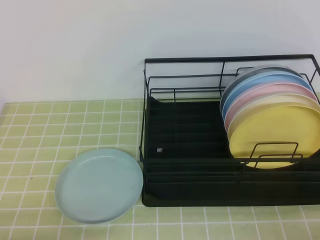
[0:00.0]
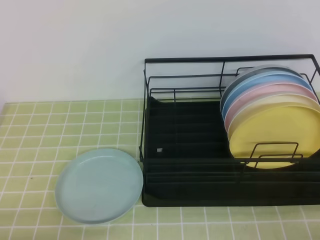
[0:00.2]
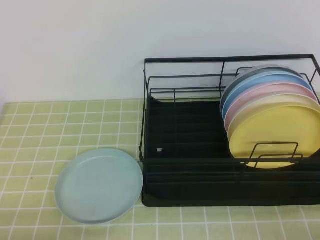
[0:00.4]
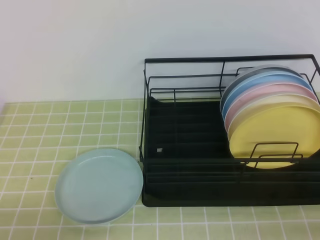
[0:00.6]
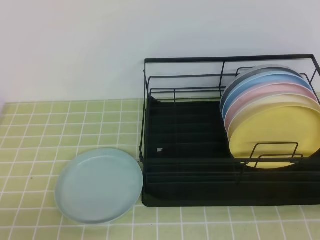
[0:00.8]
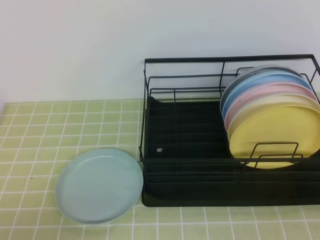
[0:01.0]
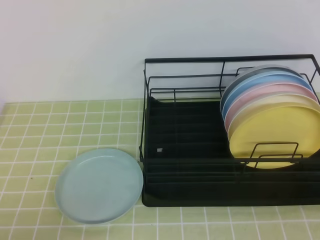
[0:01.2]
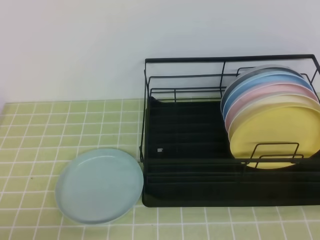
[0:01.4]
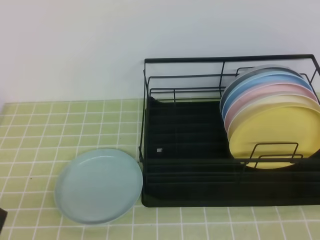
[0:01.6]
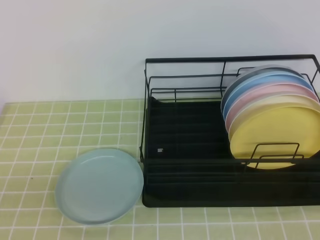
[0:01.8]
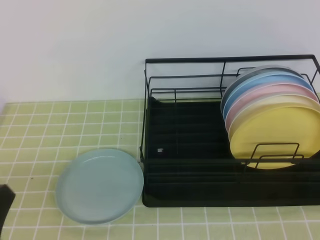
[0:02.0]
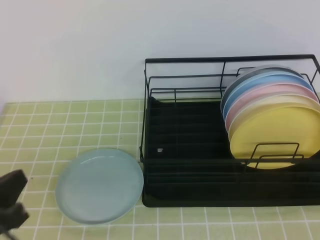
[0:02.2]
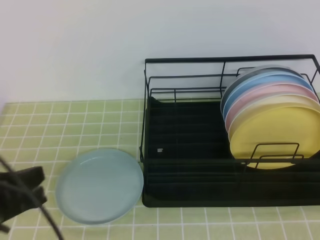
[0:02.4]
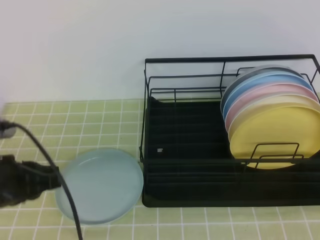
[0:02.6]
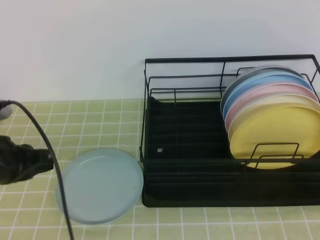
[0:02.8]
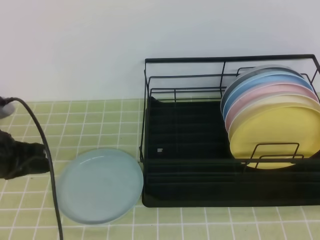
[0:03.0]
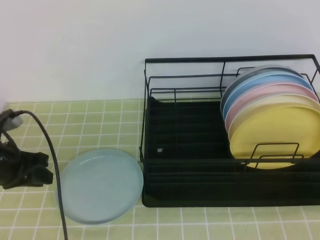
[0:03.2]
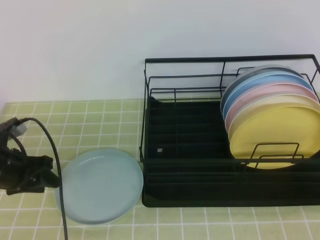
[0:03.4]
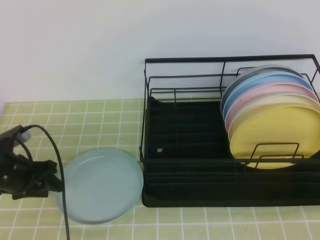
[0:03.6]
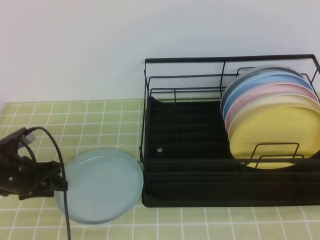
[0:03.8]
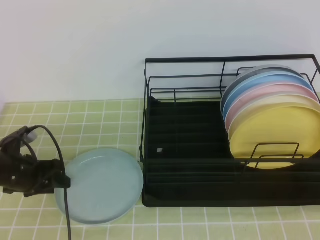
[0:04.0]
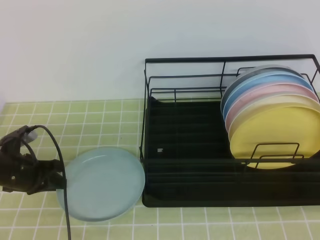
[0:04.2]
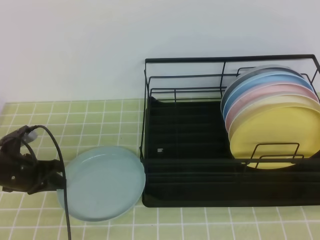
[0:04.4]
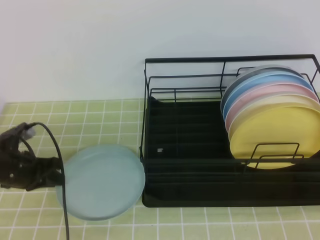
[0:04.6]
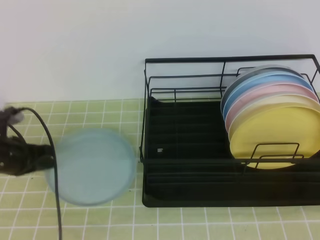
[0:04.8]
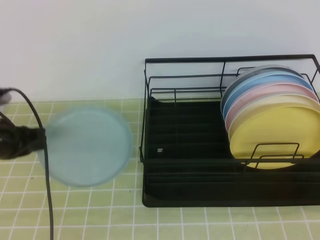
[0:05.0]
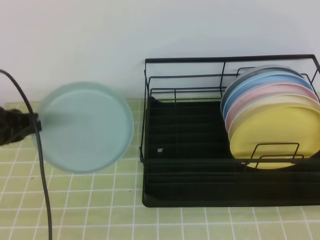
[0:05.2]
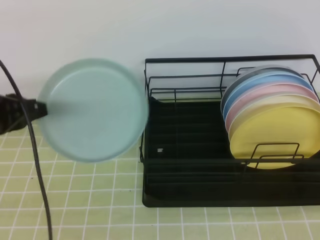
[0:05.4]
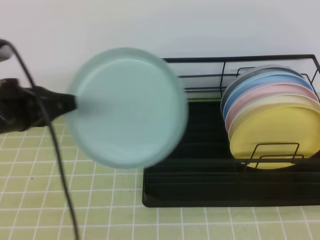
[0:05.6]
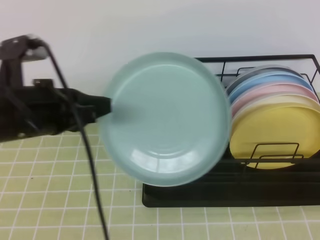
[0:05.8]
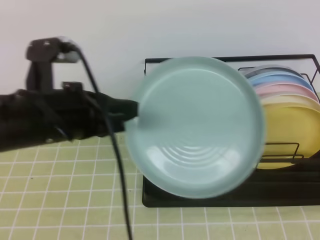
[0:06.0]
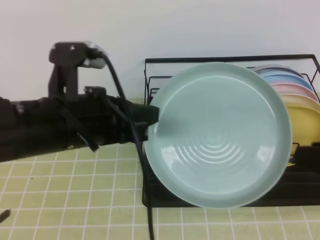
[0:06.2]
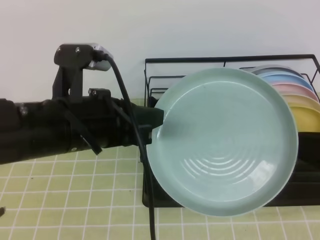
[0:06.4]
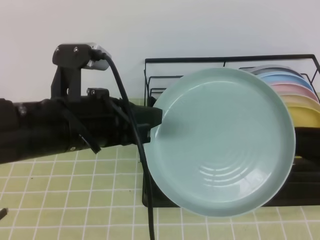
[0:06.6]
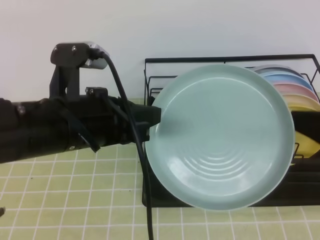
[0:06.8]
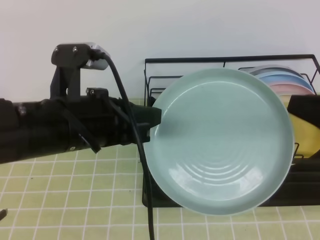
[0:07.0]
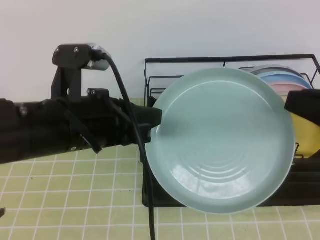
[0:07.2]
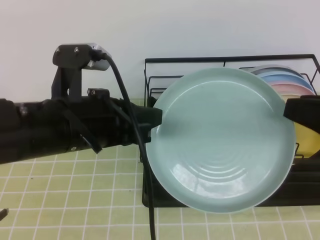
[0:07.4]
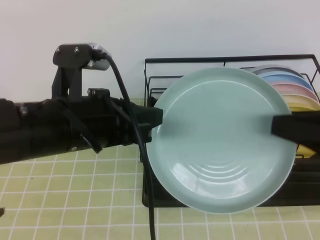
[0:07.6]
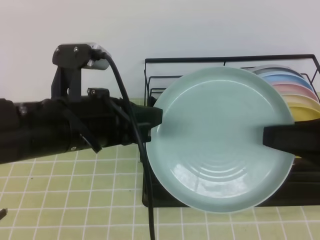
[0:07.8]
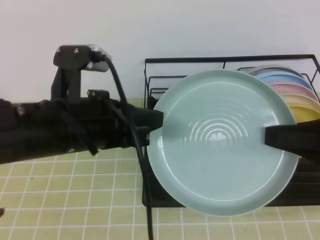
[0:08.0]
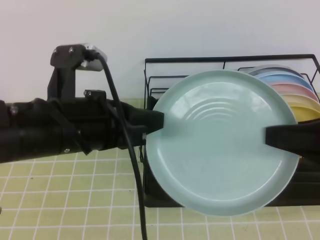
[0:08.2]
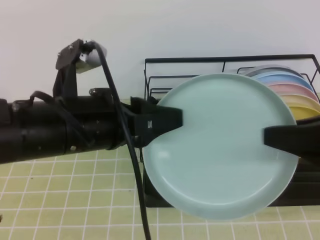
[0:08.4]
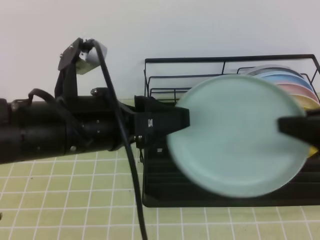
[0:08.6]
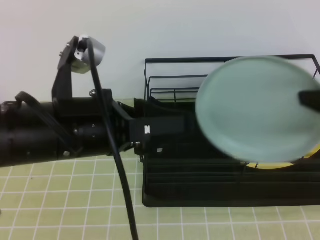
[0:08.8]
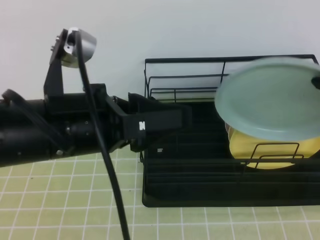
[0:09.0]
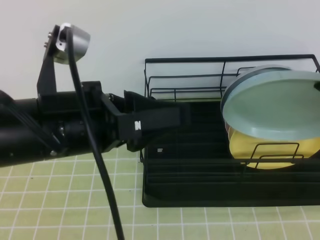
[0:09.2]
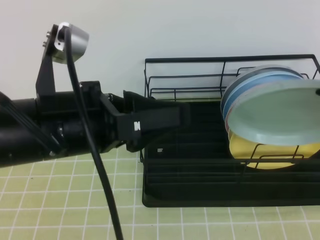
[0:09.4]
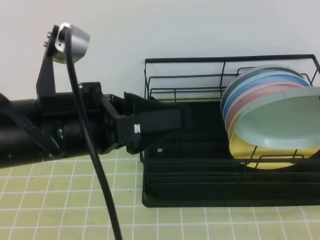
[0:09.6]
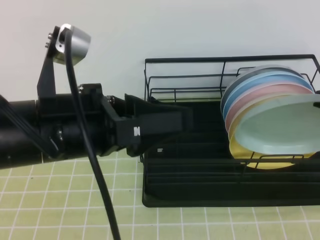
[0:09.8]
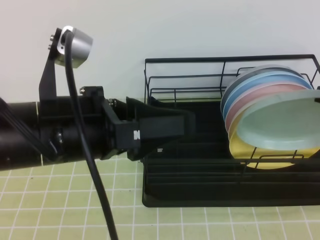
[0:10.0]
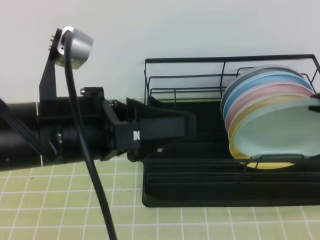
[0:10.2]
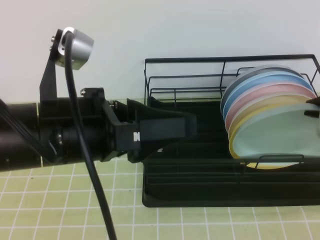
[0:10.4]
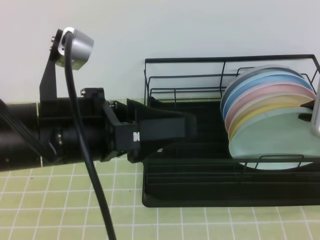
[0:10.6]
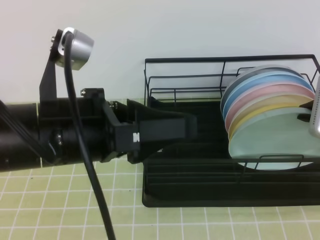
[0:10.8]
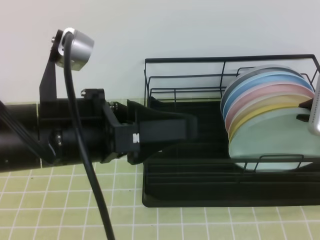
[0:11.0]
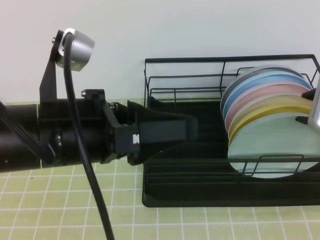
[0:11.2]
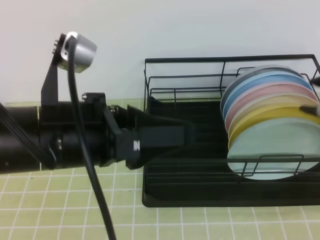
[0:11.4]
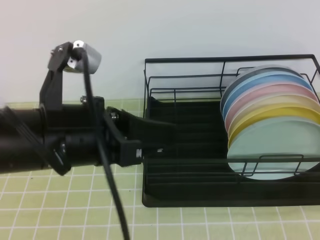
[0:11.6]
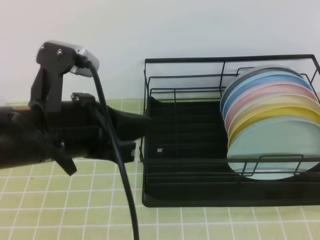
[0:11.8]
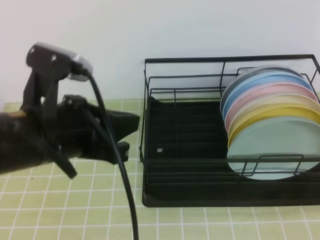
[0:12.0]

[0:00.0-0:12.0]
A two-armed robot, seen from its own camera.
Step, 0.0 to 3.6 s: Left grab the green plate.
Step, 3.8 to 6.8 s: Right receive the plate.
Step, 7.0 to 9.4 s: Right place it at the front of the shelf.
1.6 to 3.0 s: The left gripper shifts approximately 20 cm forward, while the right gripper heads forward, covering approximately 5 cm.
3.0 to 4.4 s: The left gripper heads downward and forward, covering roughly 10 cm, and opens and closes again.
4.4 to 6.0 s: The left gripper shifts about 25 cm upward, to the right and backward. The right gripper opens.
6.0 to 7.6 s: The right gripper moves forward, about 5 cm.
7.6 to 9.0 s: The right gripper changes place by about 5 cm, and closes its fingers; the left gripper opens up.
9.0 to 10.4 s: The right gripper shifts by roughly 5 cm.
10.4 to 12.0 s: The left gripper closes its fingers. The right gripper heads backward and upward, covering approximately 15 cm, and opens, then closes again.

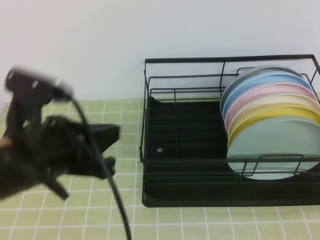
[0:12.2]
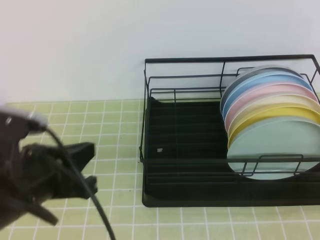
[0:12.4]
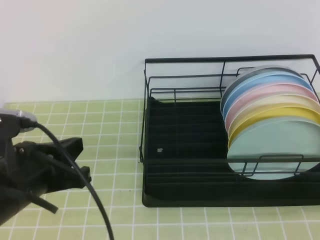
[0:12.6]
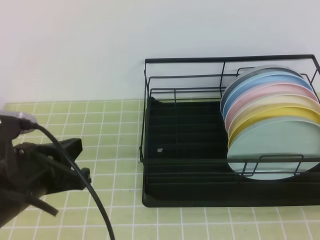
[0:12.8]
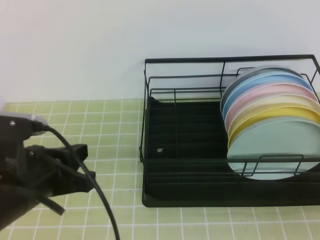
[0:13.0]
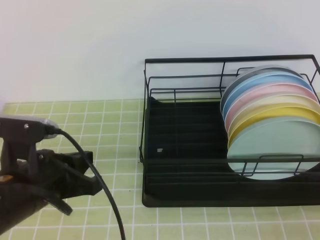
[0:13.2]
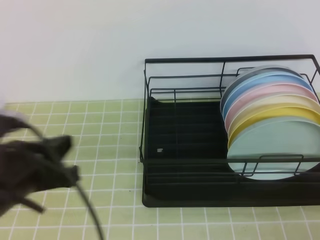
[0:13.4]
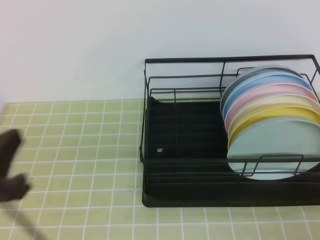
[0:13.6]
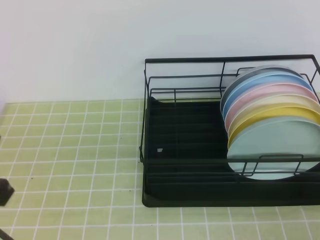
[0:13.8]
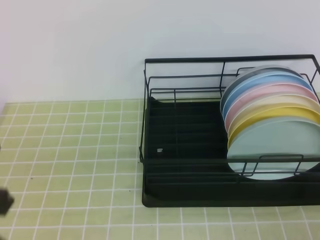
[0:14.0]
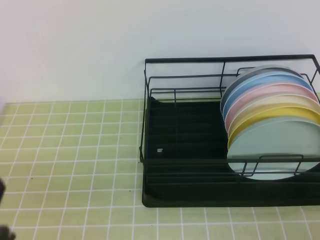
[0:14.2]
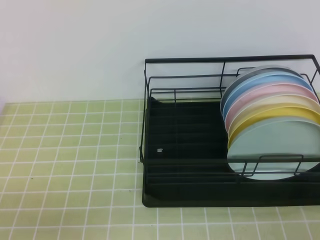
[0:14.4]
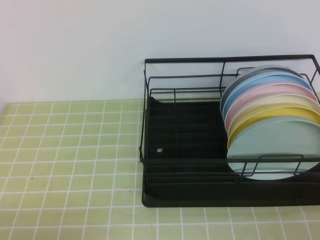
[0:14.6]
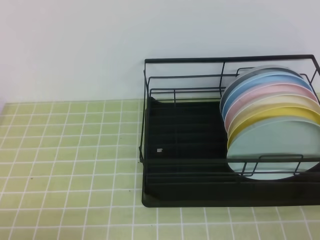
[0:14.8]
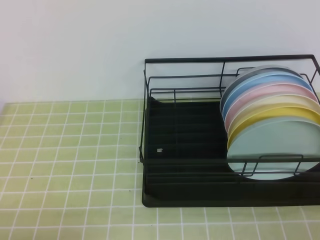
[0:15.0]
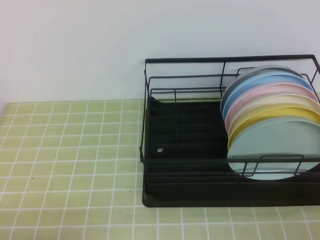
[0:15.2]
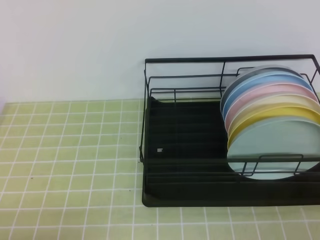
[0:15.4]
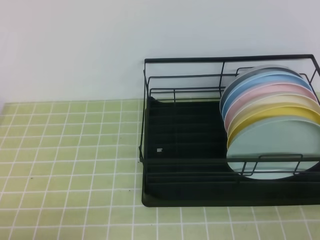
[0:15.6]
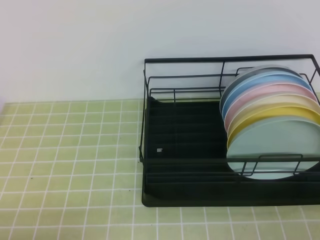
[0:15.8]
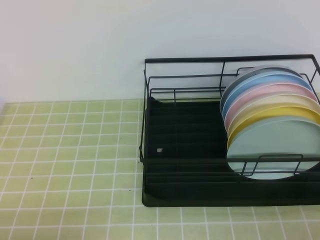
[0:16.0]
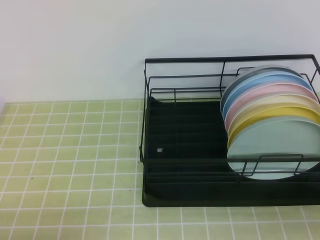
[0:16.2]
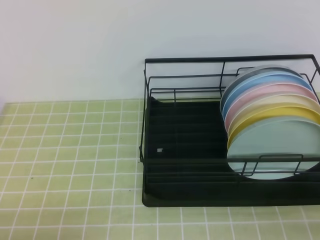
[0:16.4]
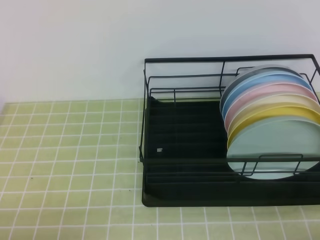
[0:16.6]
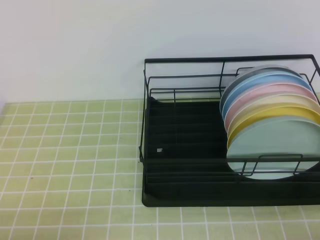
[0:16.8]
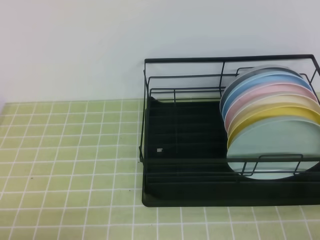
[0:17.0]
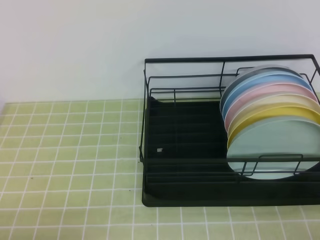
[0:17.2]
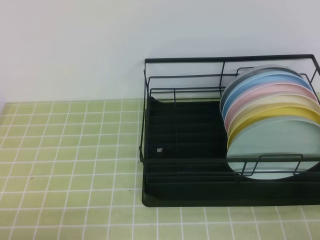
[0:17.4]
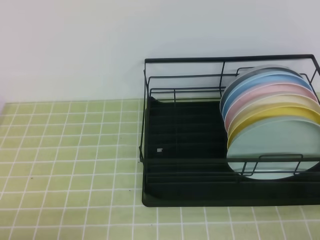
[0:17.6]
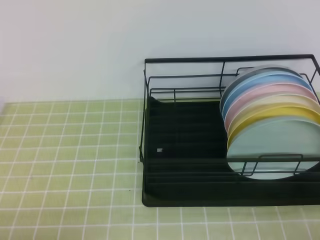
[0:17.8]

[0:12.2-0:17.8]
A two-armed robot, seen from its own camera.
12.2 to 13.6 s: The right gripper goes roughly 15 cm downward. The left gripper moves to the left, approximately 5 cm.
13.6 to 15.0 s: The left gripper is displaced downward and backward by some 15 cm.

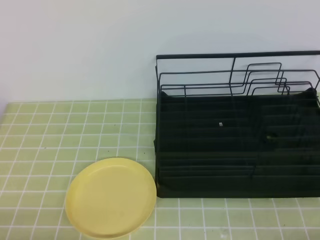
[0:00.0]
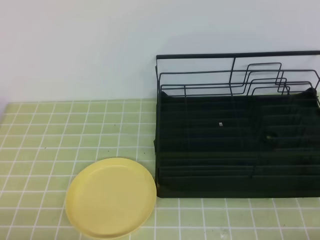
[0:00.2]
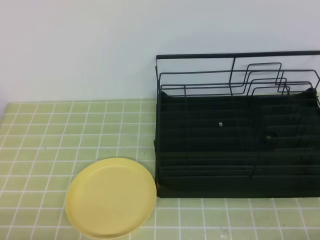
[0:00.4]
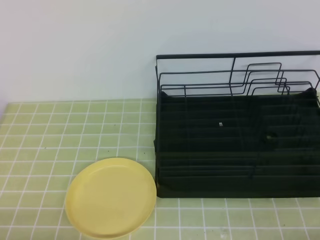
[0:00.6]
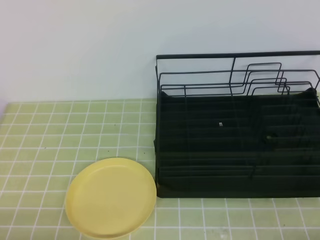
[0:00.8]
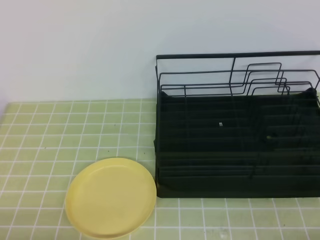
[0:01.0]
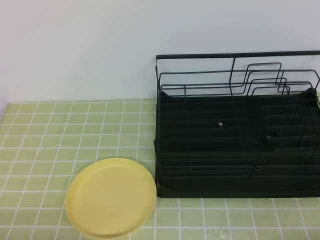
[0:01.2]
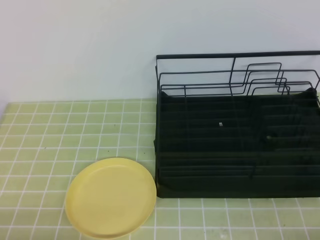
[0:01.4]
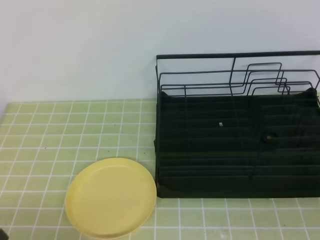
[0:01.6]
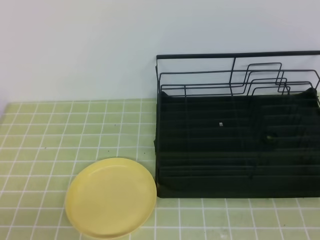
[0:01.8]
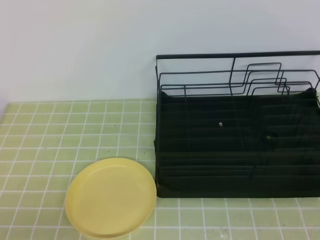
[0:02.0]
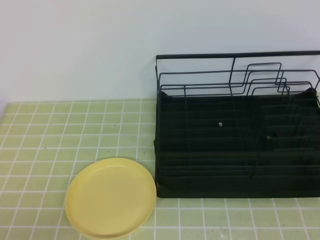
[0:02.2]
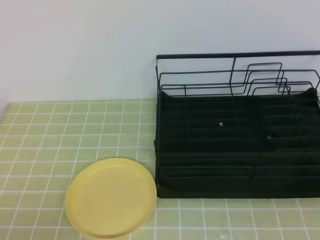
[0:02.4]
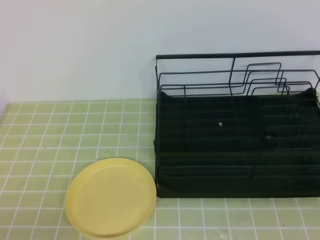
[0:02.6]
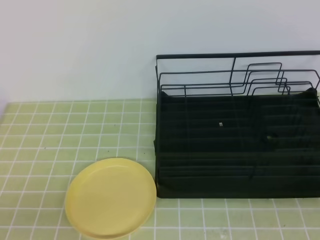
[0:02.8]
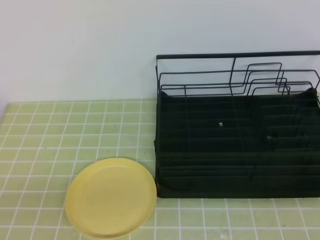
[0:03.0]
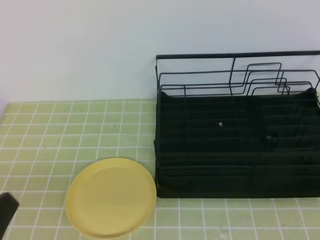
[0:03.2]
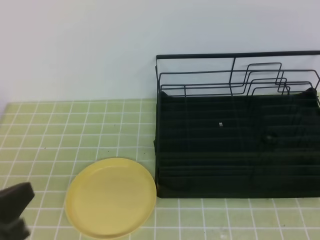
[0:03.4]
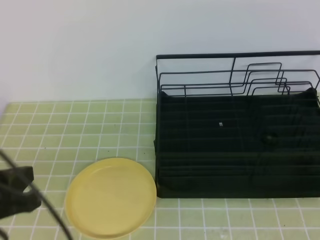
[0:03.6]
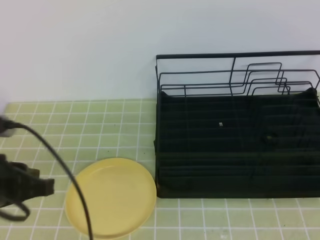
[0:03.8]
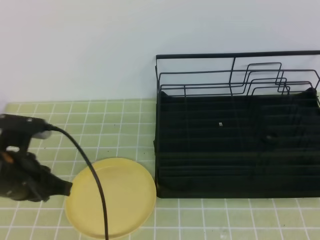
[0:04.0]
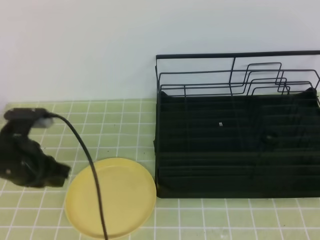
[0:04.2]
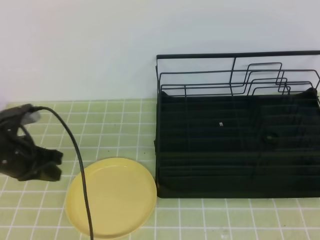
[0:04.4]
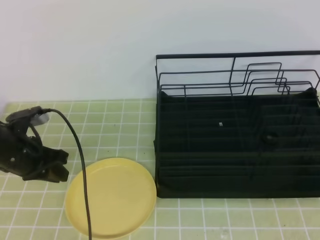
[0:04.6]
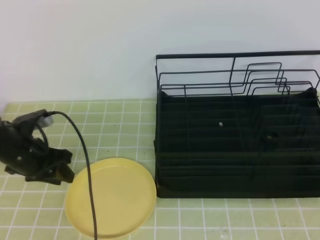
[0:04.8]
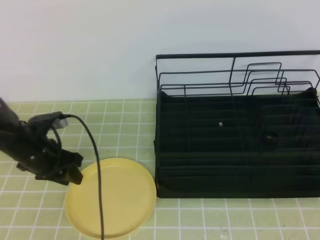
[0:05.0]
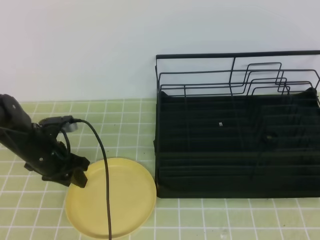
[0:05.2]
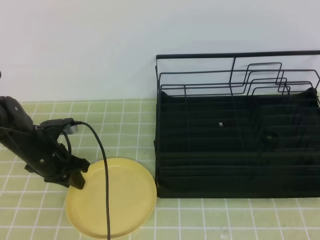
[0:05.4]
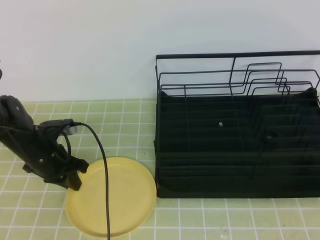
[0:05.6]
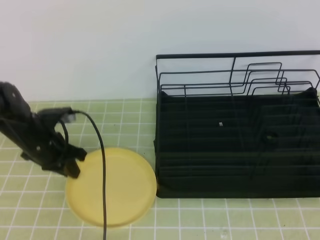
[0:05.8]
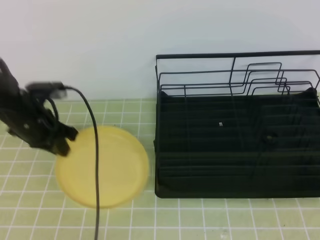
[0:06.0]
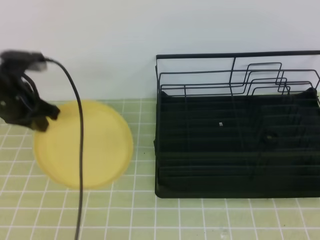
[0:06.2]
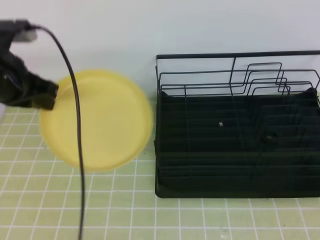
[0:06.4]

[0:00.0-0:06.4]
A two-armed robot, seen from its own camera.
Step, 0.0 to 4.4 s: Left grab the yellow plate.
1.6 to 3.2 s: The left gripper travels upward by about 10 cm.
3.2 to 4.8 s: The left gripper goes approximately 30 cm forward, and opens.
4.8 to 6.4 s: The left gripper is displaced upward by about 15 cm, and closes.
